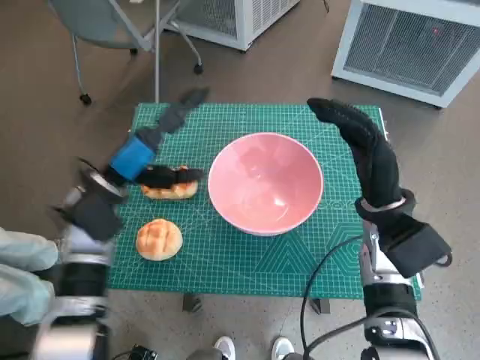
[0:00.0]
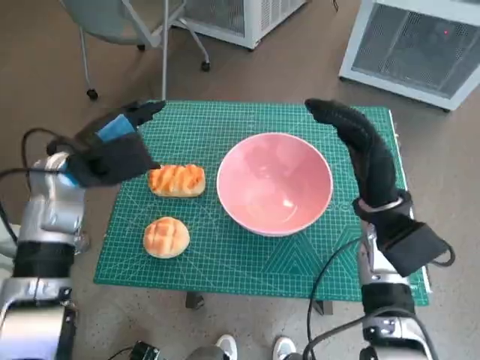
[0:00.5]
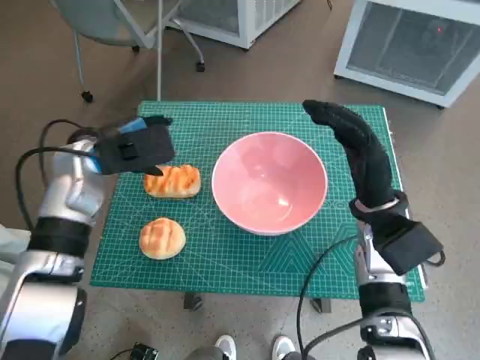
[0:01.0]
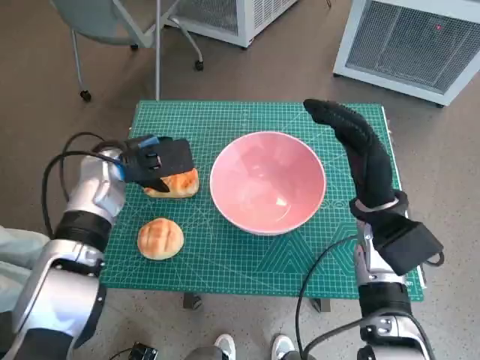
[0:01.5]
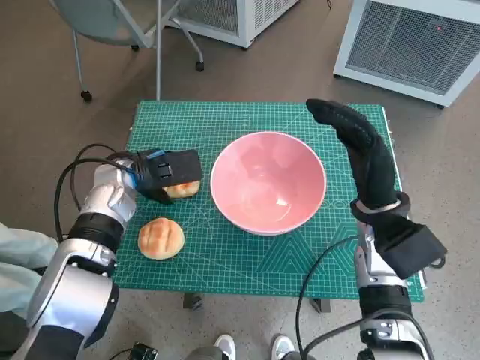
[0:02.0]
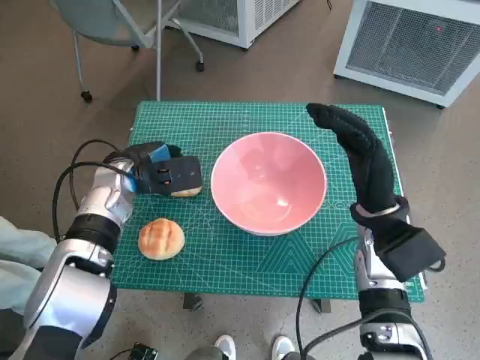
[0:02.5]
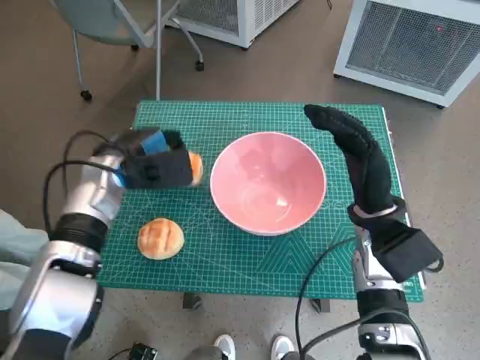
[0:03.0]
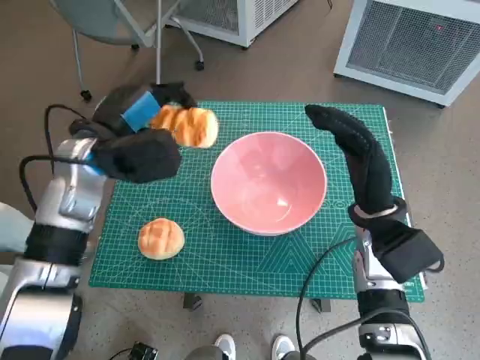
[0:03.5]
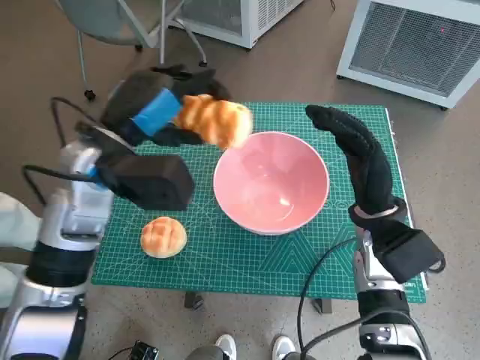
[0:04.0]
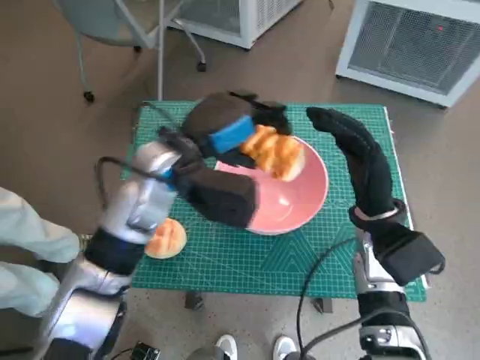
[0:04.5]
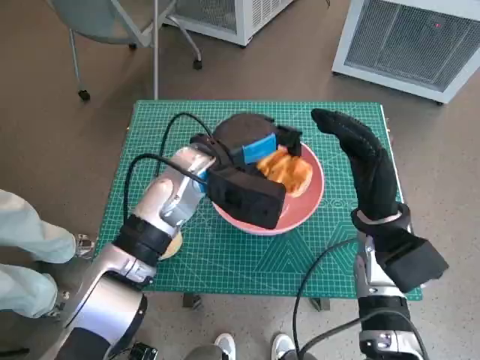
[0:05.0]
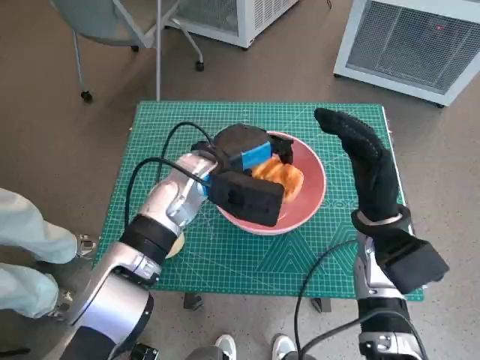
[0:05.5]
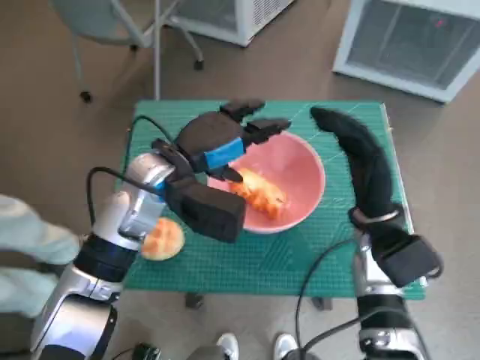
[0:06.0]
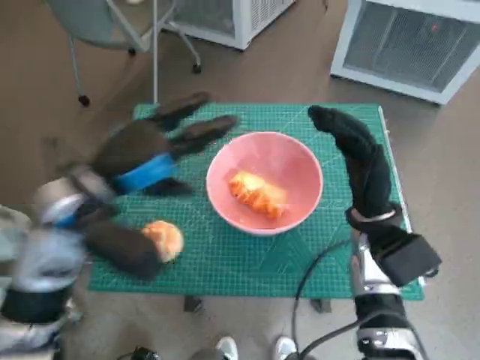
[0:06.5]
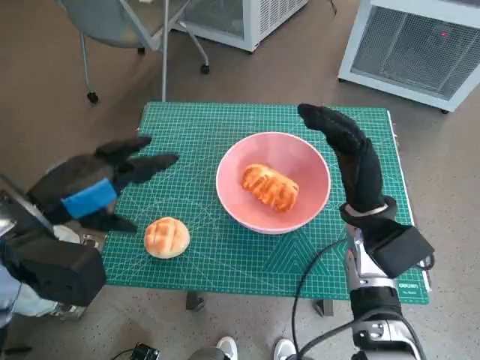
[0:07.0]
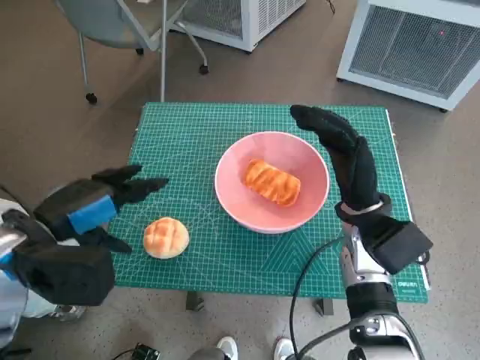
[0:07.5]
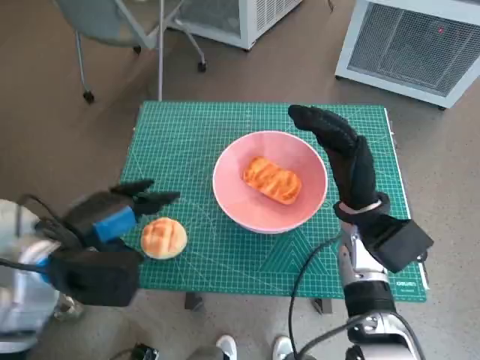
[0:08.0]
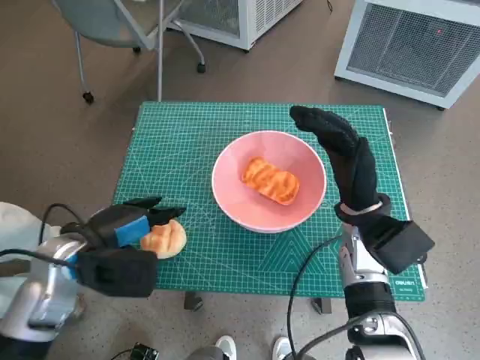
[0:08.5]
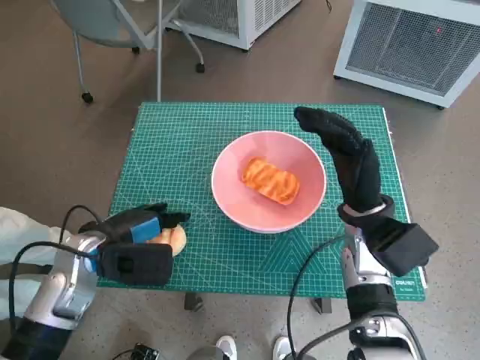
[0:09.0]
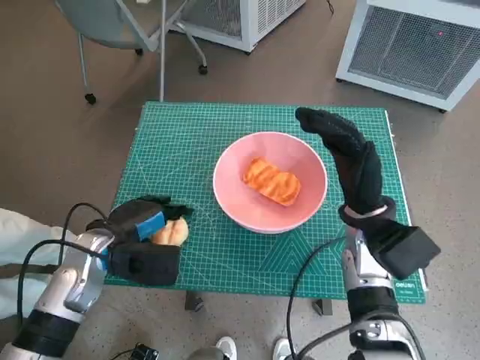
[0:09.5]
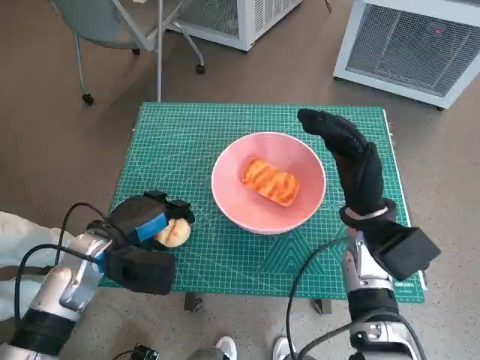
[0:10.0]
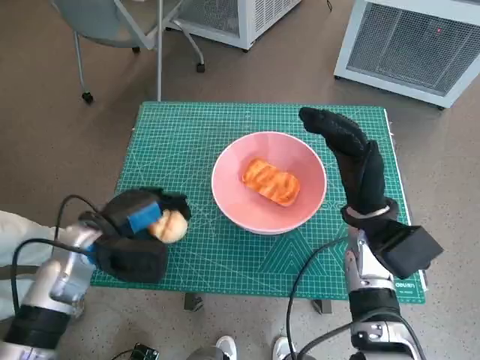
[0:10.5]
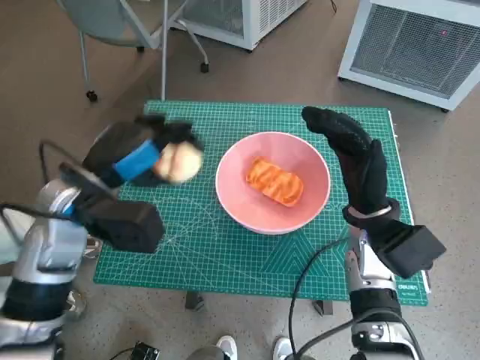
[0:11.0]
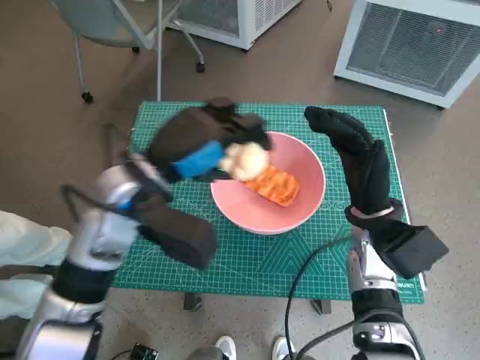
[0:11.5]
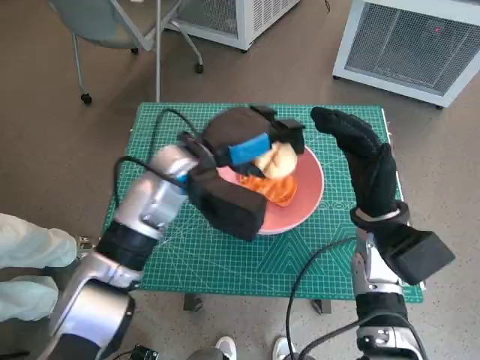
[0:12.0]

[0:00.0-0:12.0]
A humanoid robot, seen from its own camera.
Task of the whole recording: Push the bowl into the center of the table and put the bread into the bowl.
Step, 0:00.0 to 0:02.0: Grasp the long bread with left hand.
Step, 0:02.5 to 0:05.5: Place the long bread in pink bowl with left hand.
Step, 0:06.0 to 0:09.5: Grasp the round bread with left hand.
0:00.0 to 0:02.0: The left hand is displaced forward by some 5 cm.
0:02.0 to 0:04.0: The left hand is displaced upward and backward by about 10 cm.
0:04.0 to 0:06.0: The left hand travels to the right by some 5 cm.
0:06.0 to 0:08.0: The left hand shifts about 20 cm to the left and backward.
0:08.0 to 0:10.0: The left hand goes about 10 cm downward.
0:10.0 to 0:12.0: The left hand heads to the right, upward and forward, covering approximately 20 cm.

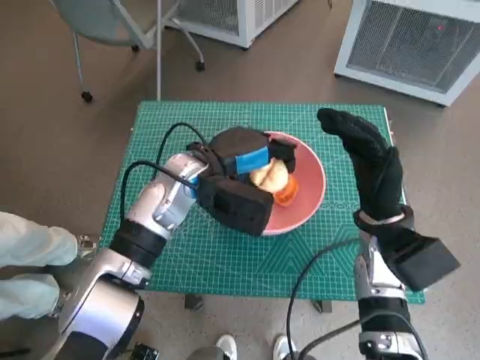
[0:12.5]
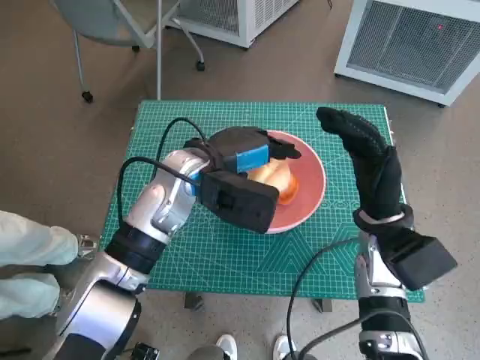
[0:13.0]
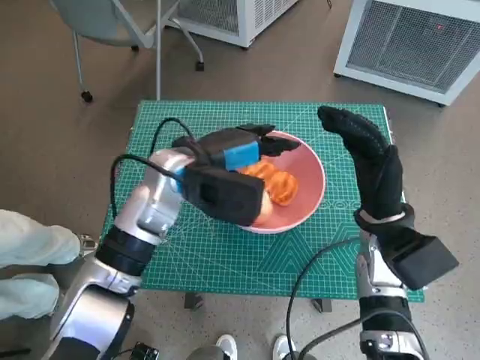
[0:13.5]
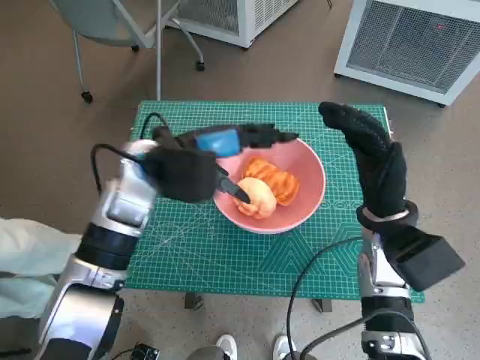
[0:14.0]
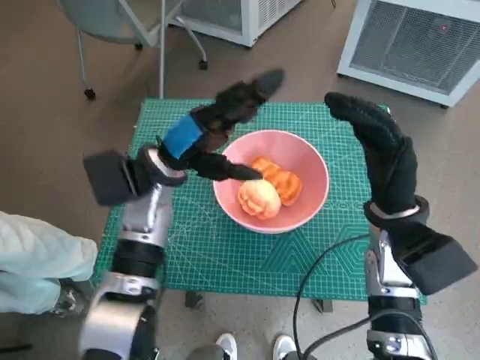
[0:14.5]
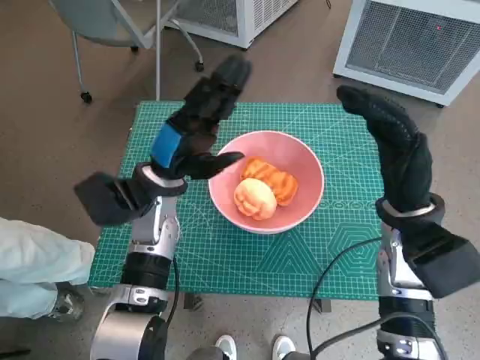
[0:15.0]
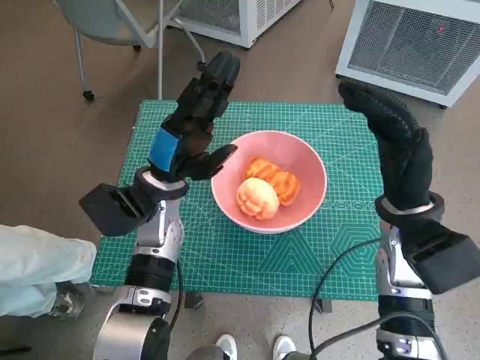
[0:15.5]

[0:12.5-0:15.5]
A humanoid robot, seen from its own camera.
Task of the whole recording: Push the bowl into the center of the table and put the bread into the bowl.
0:12.5 to 0:14.0: The left hand moves roughly 5 cm.
0:14.0 to 0:15.5: The left hand travels downward by roughly 5 cm.

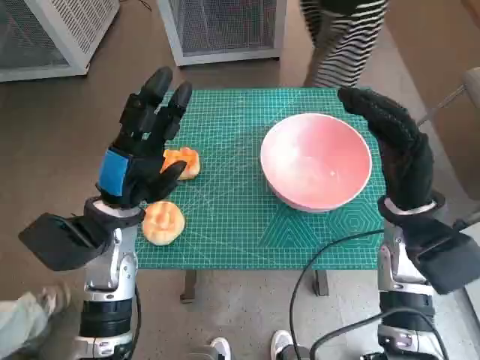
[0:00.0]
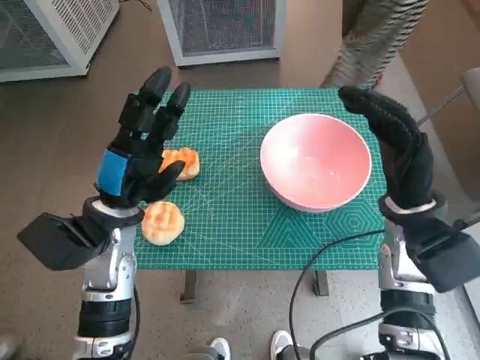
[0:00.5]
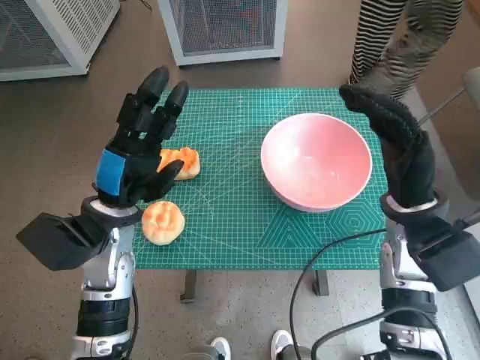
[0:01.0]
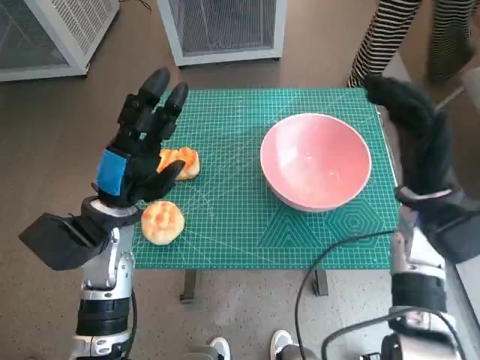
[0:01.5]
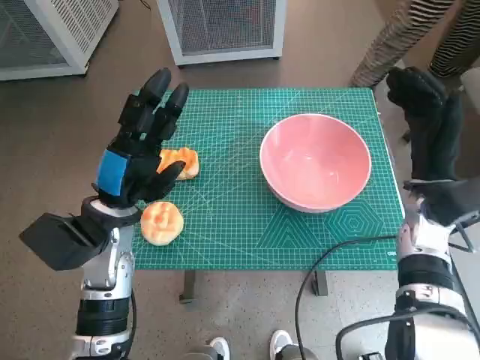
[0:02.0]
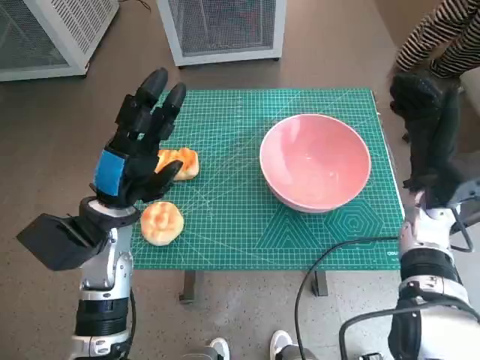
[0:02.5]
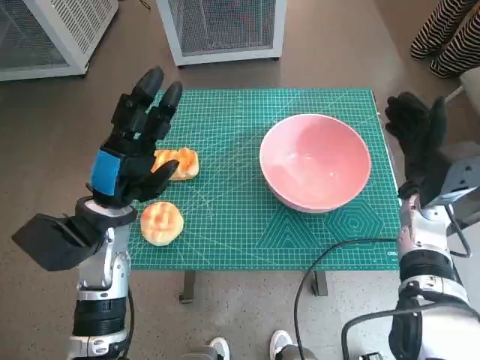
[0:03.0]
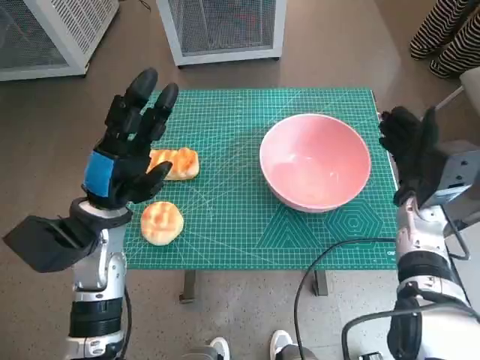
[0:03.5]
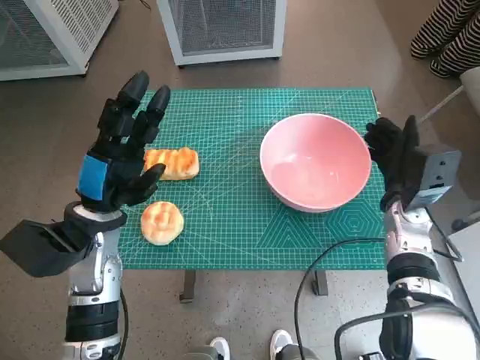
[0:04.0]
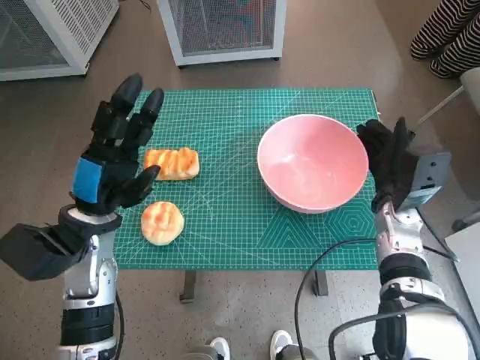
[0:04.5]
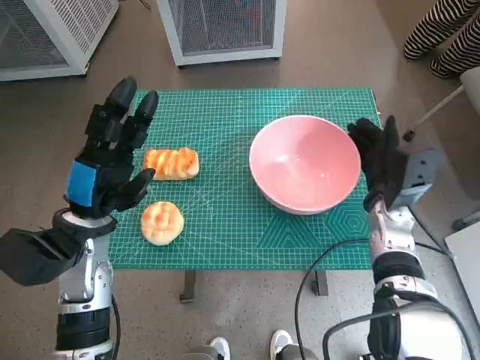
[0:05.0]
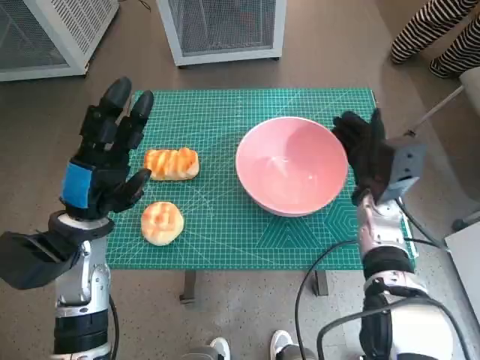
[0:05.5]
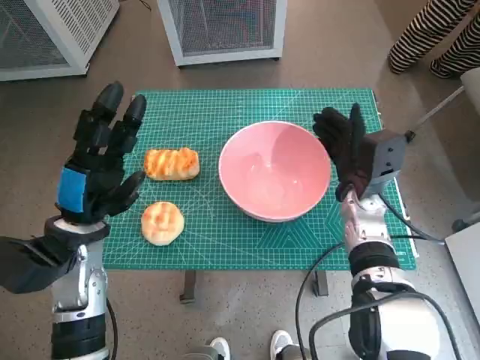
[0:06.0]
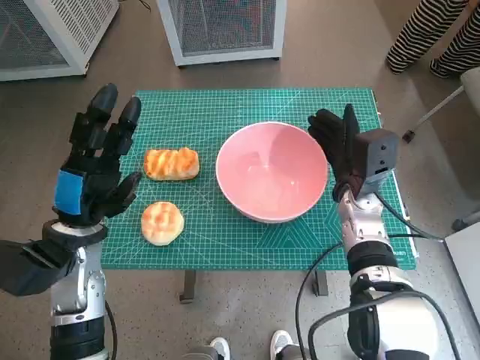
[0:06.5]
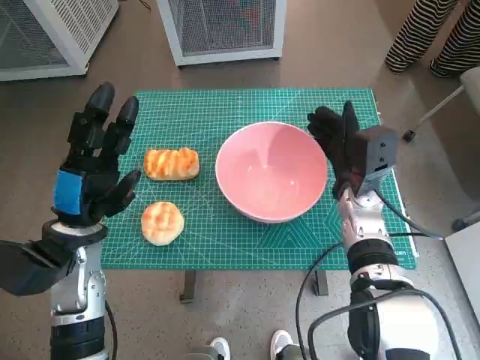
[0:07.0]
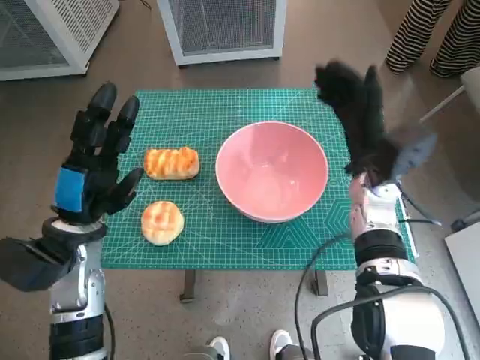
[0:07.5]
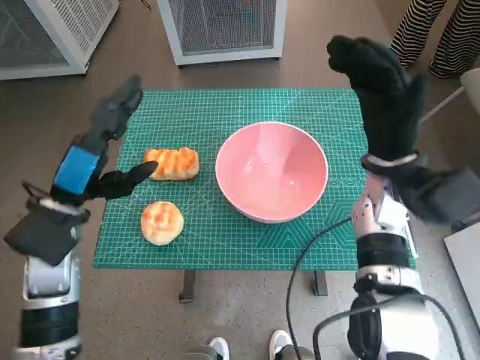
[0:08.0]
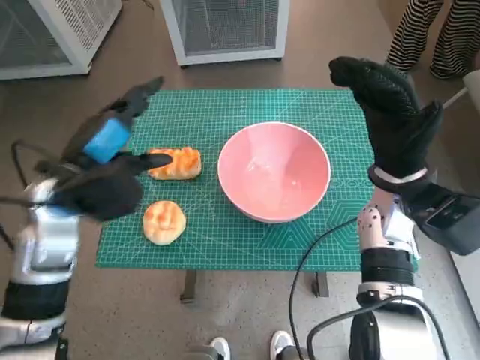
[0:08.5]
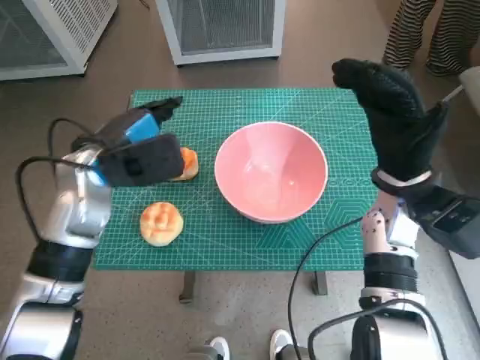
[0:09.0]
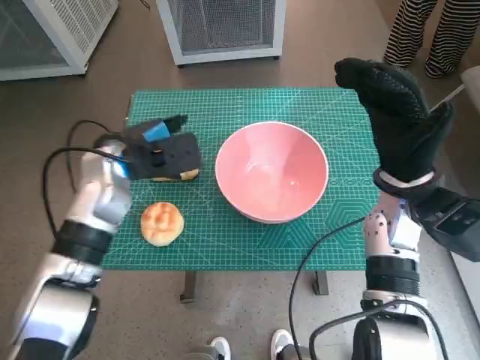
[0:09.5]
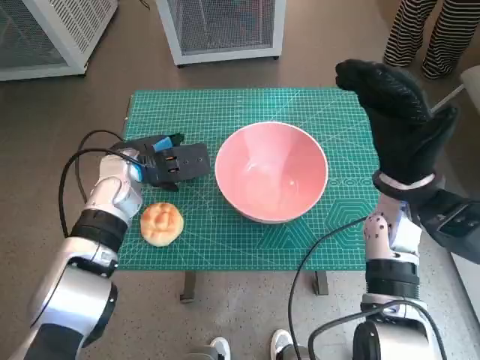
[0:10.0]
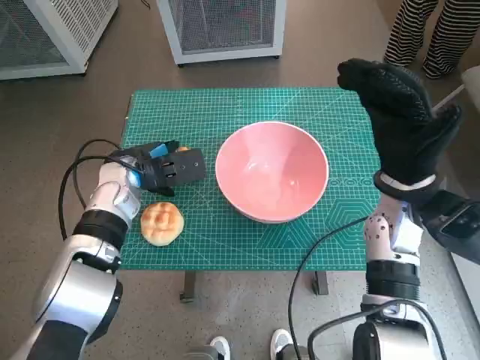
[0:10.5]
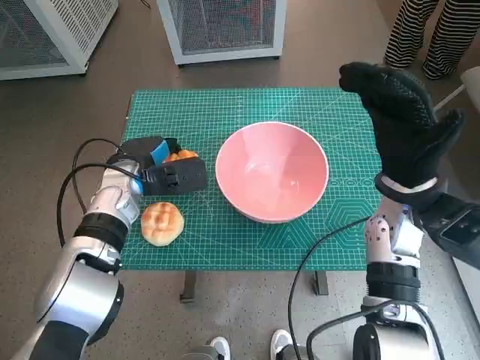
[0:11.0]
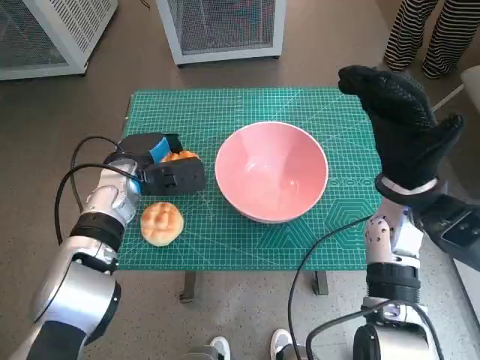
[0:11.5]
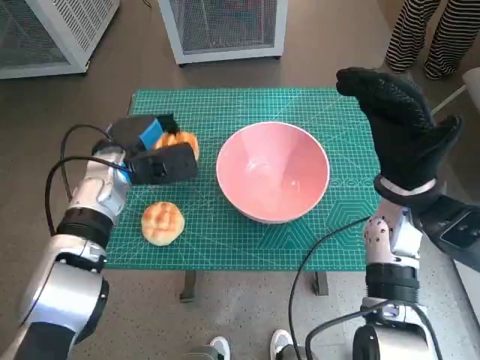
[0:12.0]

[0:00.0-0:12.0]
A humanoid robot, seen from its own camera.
Task of the whole recording: Push the bowl into the center of the table and put the bread into the bowl.
Step, 0:00.0 to 0:07.0: Move the pink bowl to the center of table with right hand.
Step, 0:07.5 to 0:11.0: Grasp the long bread with left hand.
0:02.0 to 0:04.0: The right hand ends up some 5 cm from where it was.
0:04.0 to 0:06.0: The right hand is displaced to the left by some 5 cm.
0:06.0 to 0:08.0: The right hand moves upward, some 10 cm.
0:08.0 to 0:10.0: The left hand is displaced forward and to the right by roughly 10 cm.
0:10.0 to 0:12.0: There are only small adjustments of the hands.
